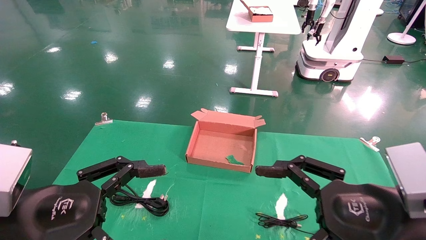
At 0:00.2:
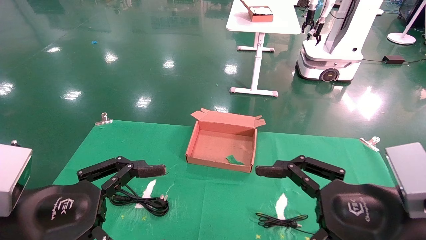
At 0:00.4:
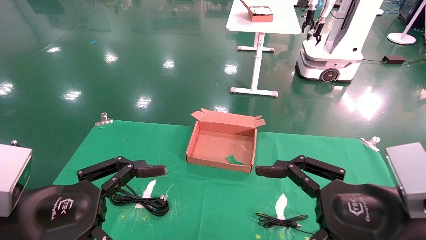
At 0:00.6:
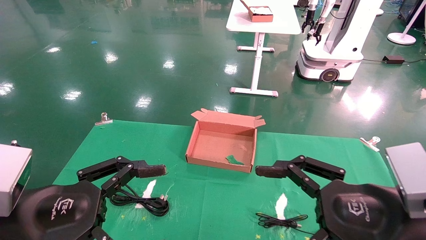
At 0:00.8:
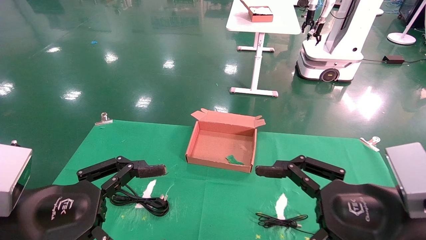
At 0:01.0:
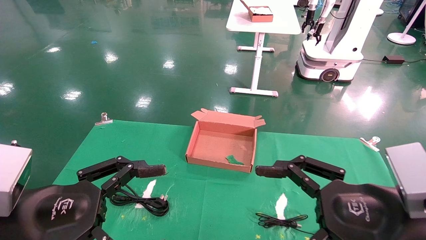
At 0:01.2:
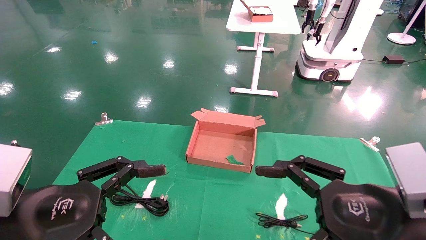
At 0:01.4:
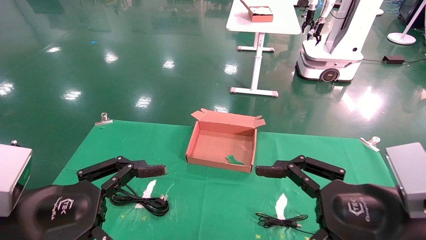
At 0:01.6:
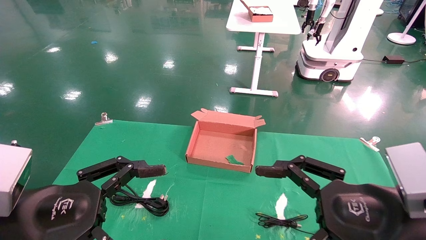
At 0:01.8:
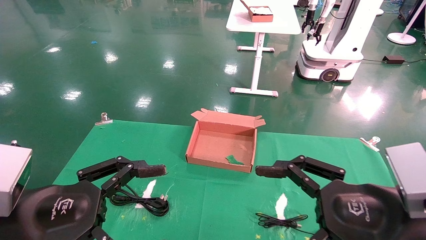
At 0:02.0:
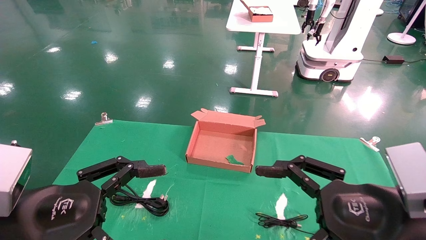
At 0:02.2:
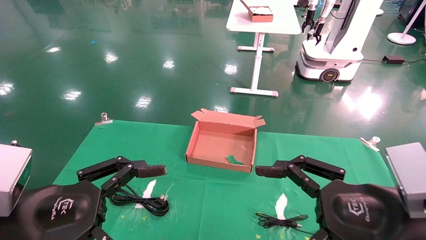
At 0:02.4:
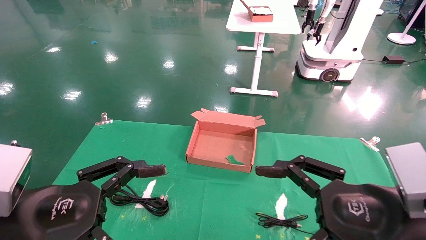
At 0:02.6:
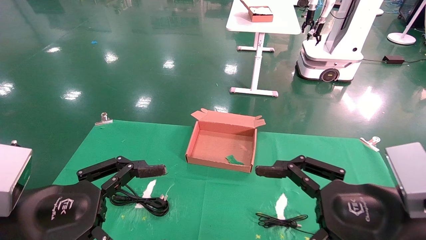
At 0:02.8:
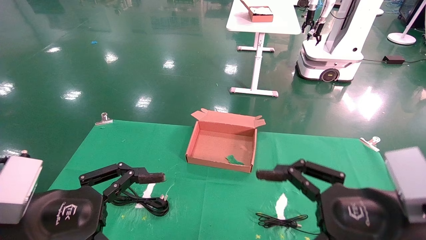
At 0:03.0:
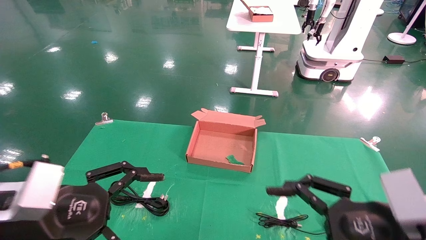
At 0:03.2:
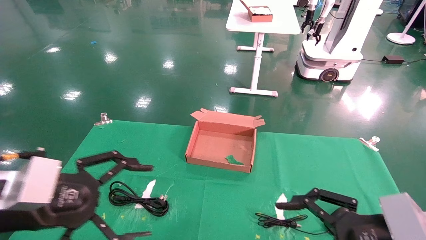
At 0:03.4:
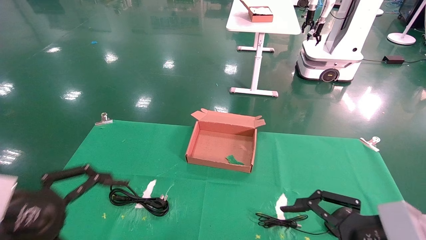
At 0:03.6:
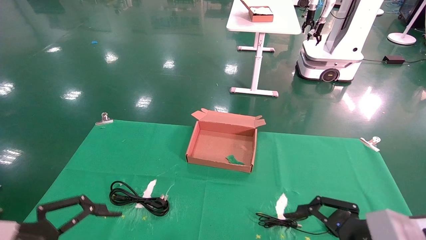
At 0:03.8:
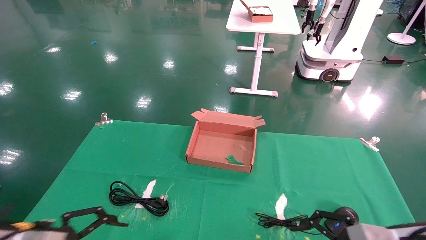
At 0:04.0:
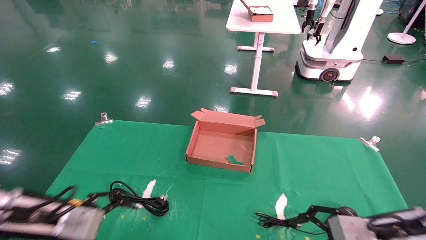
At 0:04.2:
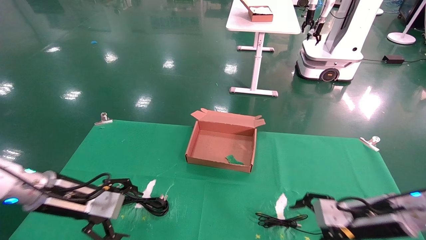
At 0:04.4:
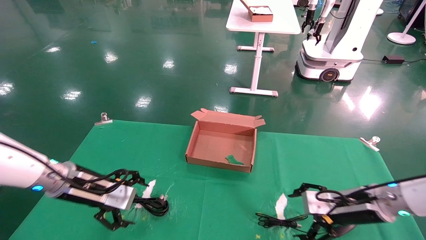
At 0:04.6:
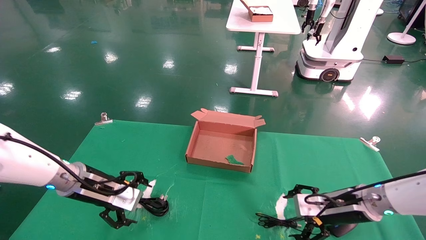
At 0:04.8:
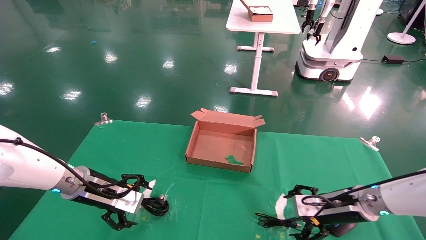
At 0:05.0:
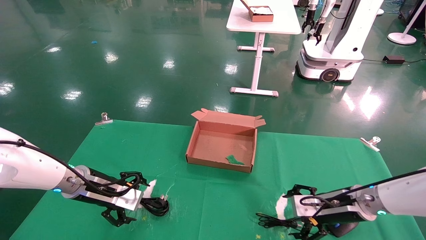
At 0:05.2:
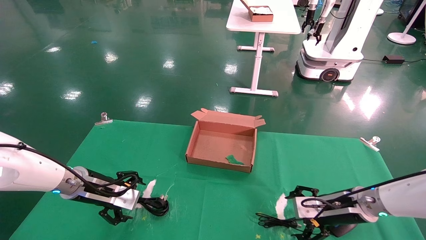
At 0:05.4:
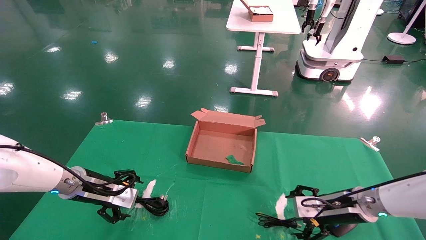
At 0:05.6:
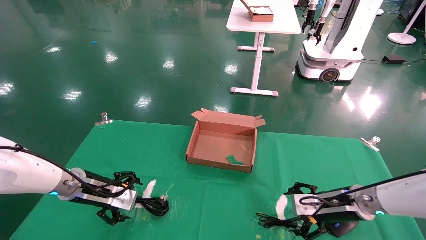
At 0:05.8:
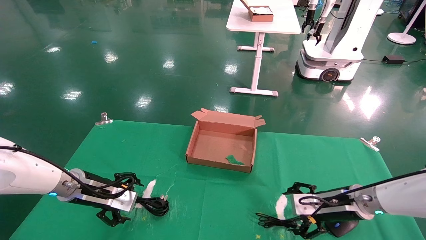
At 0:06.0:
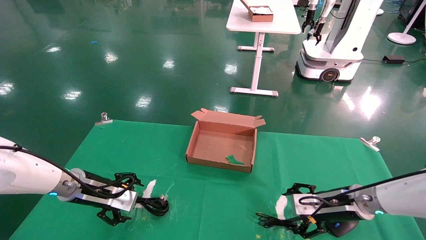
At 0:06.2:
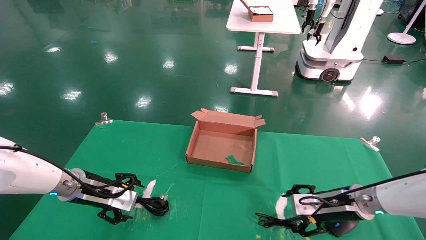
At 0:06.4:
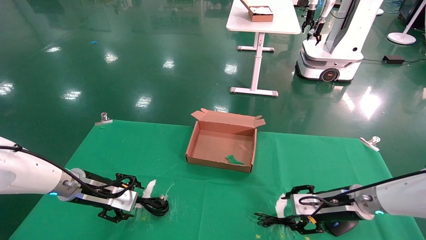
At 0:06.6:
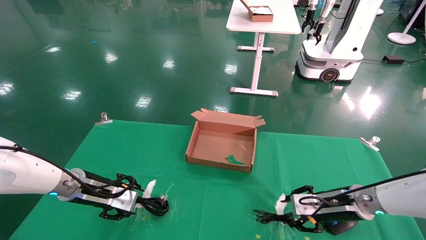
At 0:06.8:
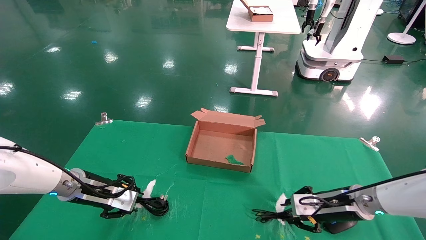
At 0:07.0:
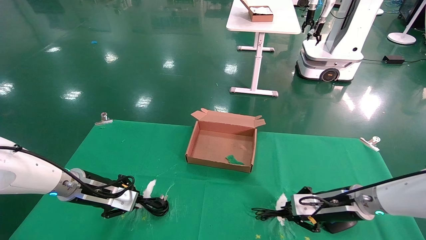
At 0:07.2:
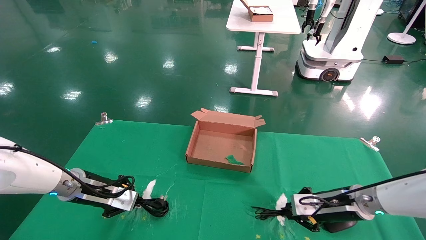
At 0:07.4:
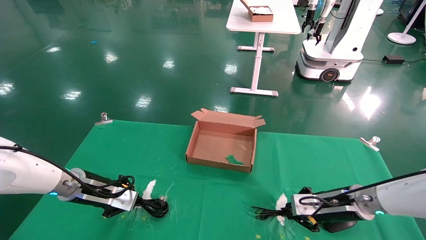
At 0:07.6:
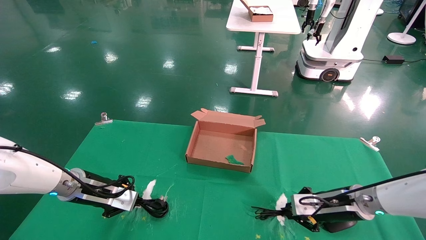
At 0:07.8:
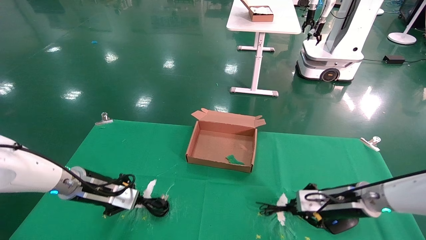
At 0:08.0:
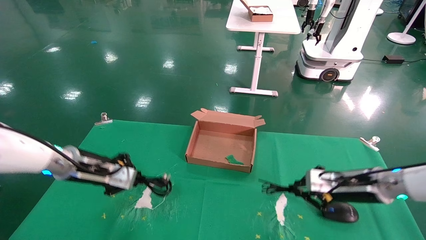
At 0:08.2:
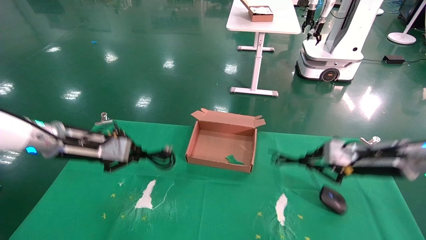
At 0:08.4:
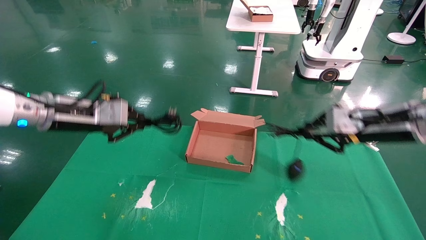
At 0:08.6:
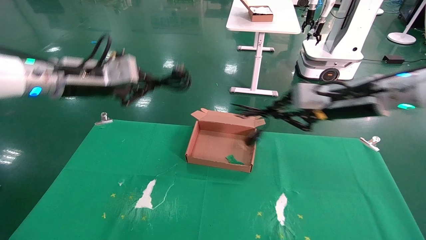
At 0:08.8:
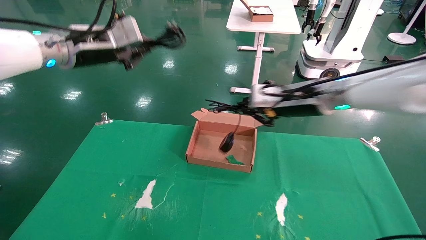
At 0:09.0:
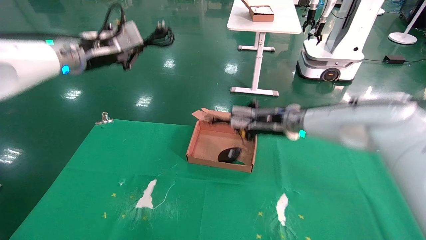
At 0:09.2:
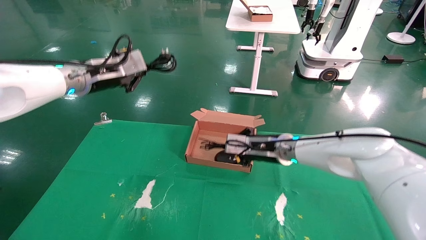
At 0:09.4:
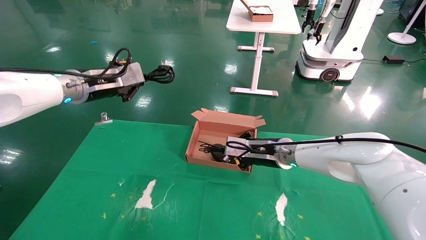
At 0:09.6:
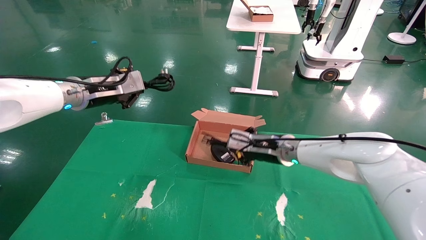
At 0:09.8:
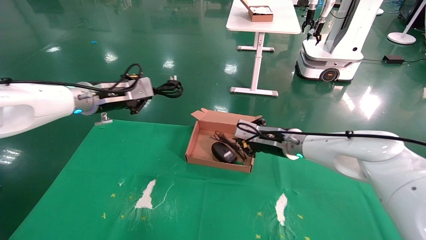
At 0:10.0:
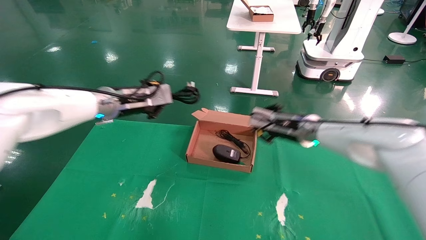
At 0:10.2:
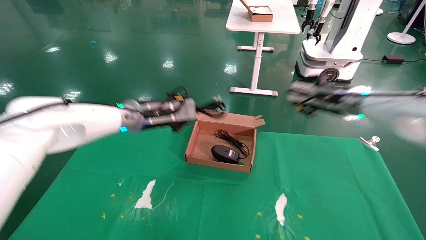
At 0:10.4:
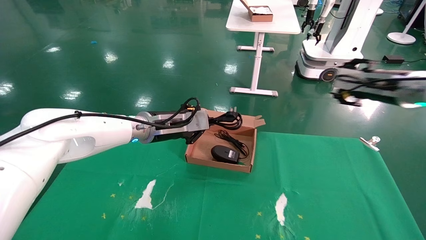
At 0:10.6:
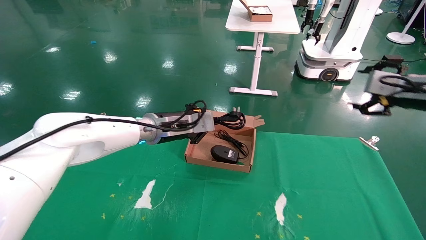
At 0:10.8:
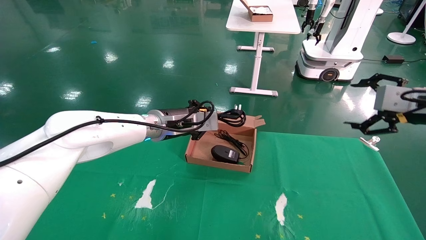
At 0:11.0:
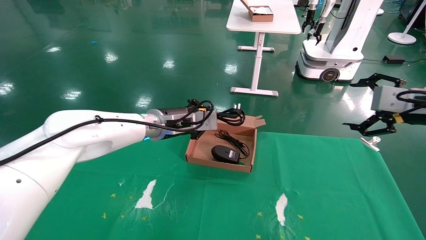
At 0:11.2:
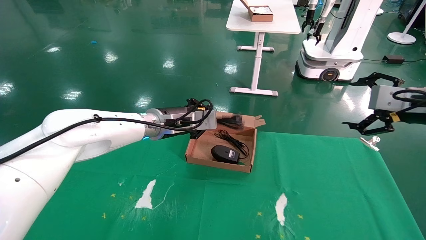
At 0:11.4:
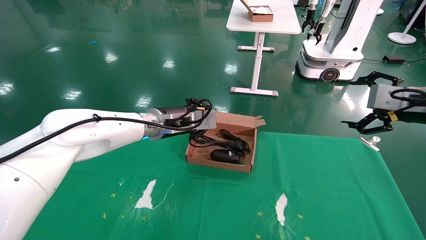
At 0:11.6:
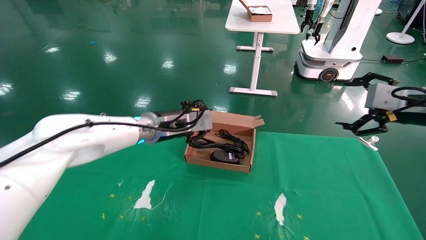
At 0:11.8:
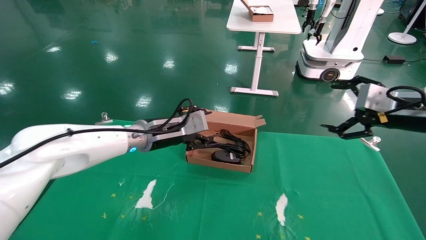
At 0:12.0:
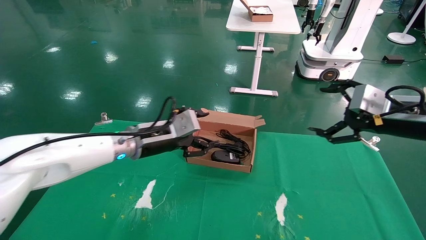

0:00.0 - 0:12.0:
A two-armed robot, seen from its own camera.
Step, 0:02.8 - 0:07.2: Grab and lift both the mouse and power cord from the accessory packaging area at the same time.
Step, 0:07.4 - 0:11.8: Place the mouse and power cord into the box.
0:00.0 - 0:01.6: Neither gripper changes place.
0:01.6 - 0:03.0: The grippers make only small movements.
0:03.0 - 0:04.4: The left gripper goes about 15 cm forward. The right gripper travels forward and downward by approximately 20 cm.
0:04.4 - 0:06.0: The left gripper shifts by about 5 cm.
0:06.0 - 0:07.6: The right gripper closes its fingers, while the left gripper closes.
0:07.6 - 0:09.0: The right gripper travels upward and to the left by about 20 cm; the left gripper moves upward, about 25 cm.
0:09.0 - 0:10.4: The left gripper shifts roughly 20 cm downward and to the right; the right gripper shifts about 20 cm to the right, and opens up.
0:10.4 - 0:12.0: The left gripper changes place by some 5 cm, and opens up, while the right gripper is displaced backward by about 10 cm, and opens its fingers.

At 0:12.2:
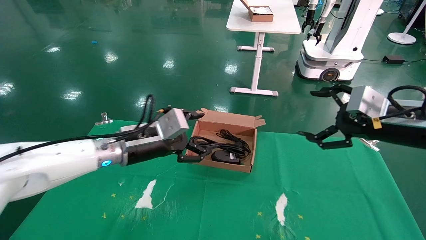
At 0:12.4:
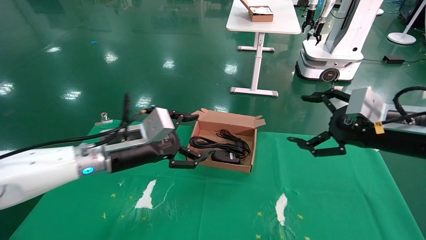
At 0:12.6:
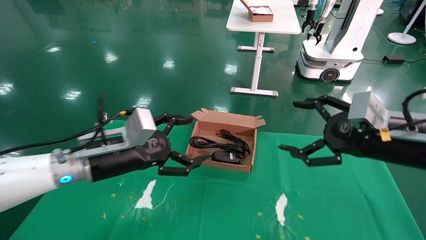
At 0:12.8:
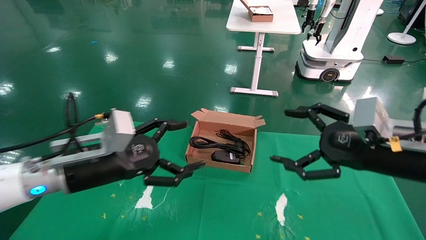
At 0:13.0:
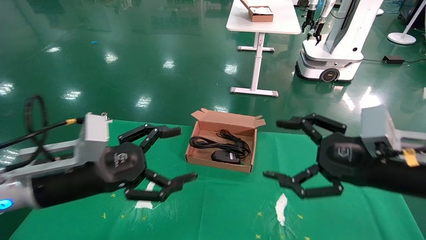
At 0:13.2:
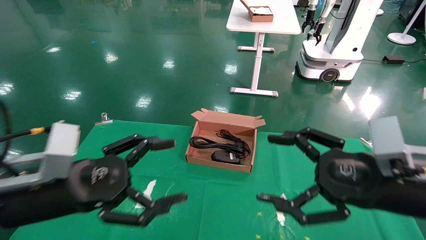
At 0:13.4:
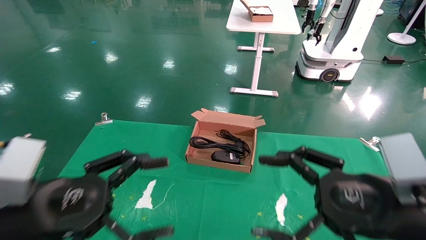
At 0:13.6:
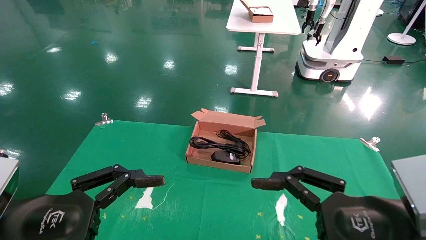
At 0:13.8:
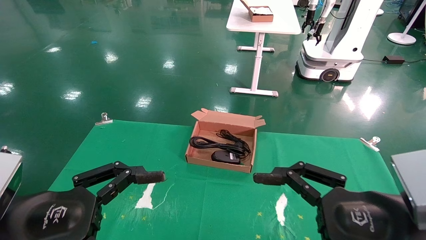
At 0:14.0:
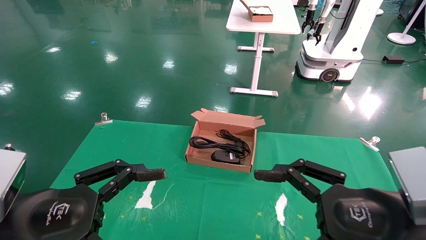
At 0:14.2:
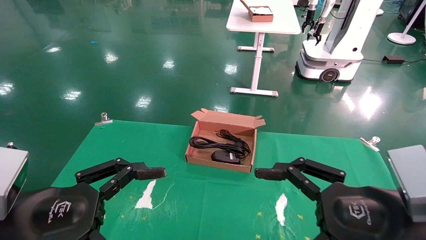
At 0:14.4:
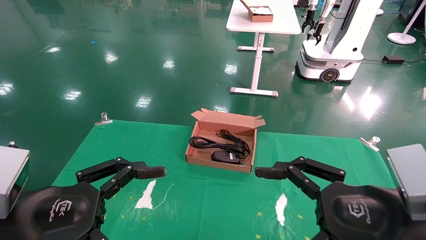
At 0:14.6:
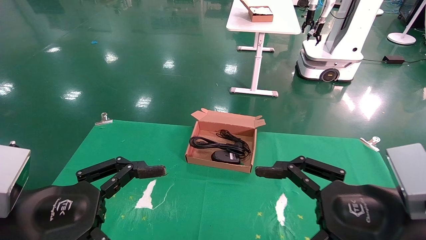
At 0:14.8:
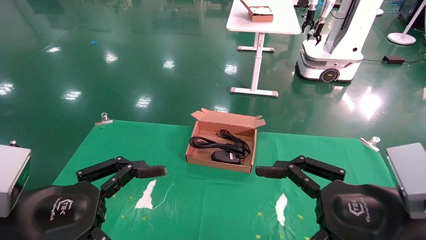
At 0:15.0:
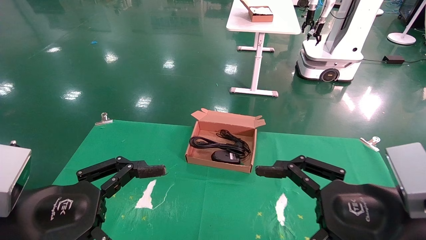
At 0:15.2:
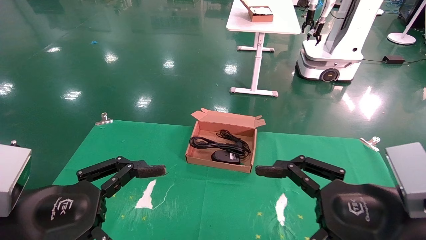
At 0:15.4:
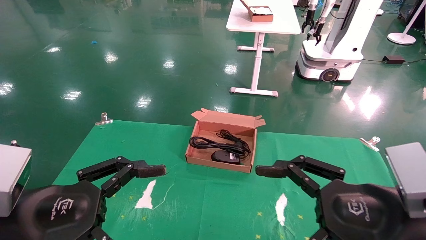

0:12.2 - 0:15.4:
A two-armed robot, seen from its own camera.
0:12.2 - 0:13.8: The left gripper goes approximately 25 cm backward. The right gripper shifts some 20 cm backward, to the left and downward.
0:13.8 - 0:15.4: Both grippers stay about where they are.
